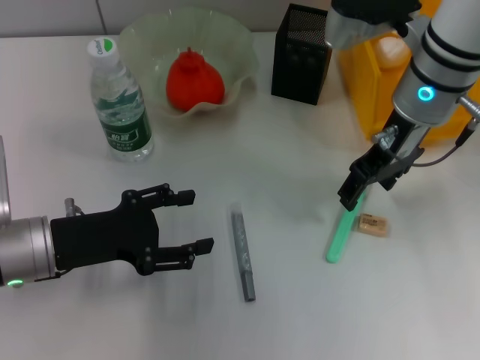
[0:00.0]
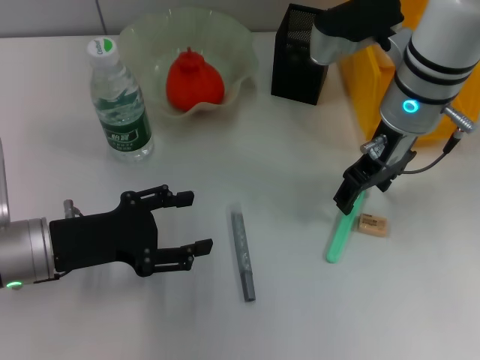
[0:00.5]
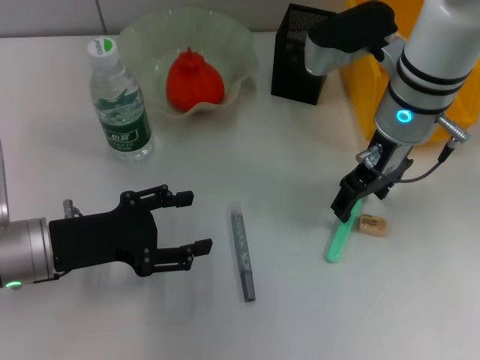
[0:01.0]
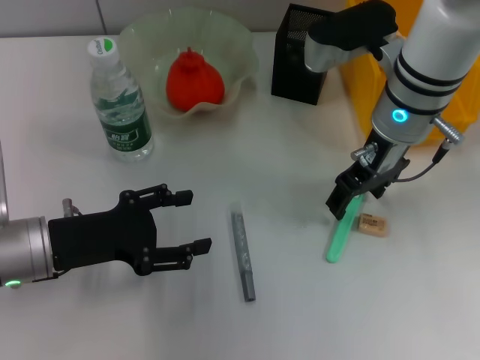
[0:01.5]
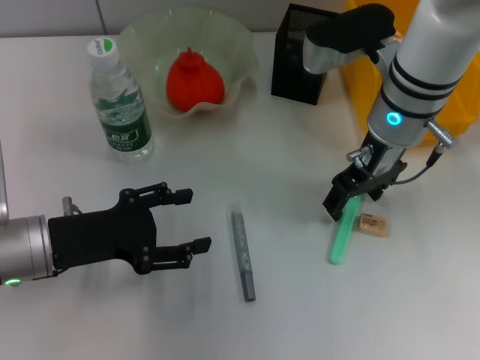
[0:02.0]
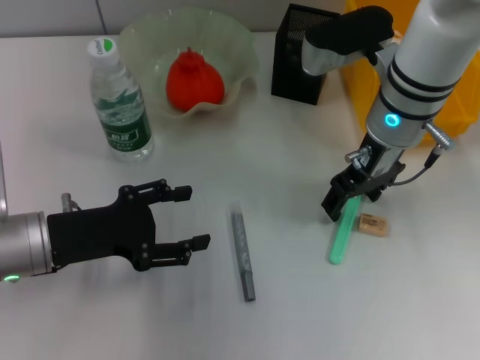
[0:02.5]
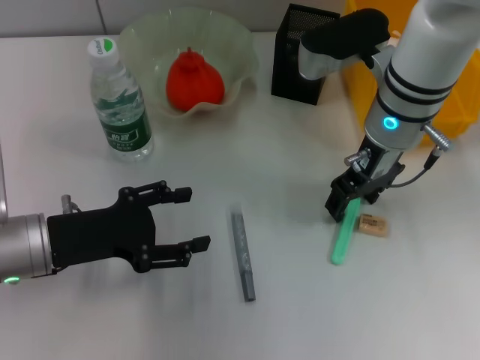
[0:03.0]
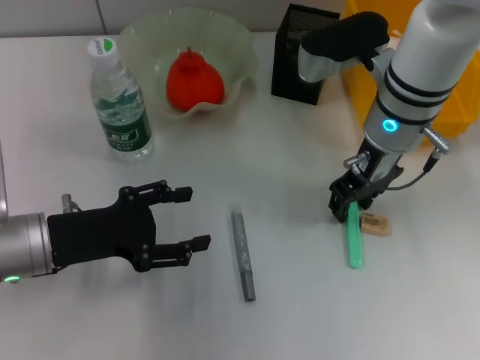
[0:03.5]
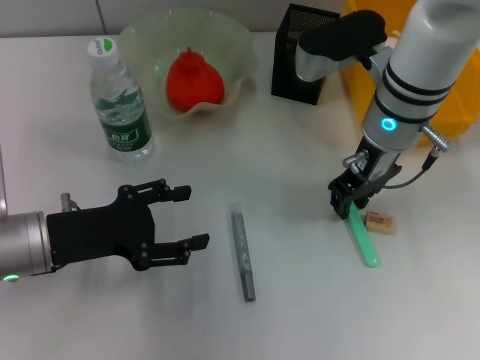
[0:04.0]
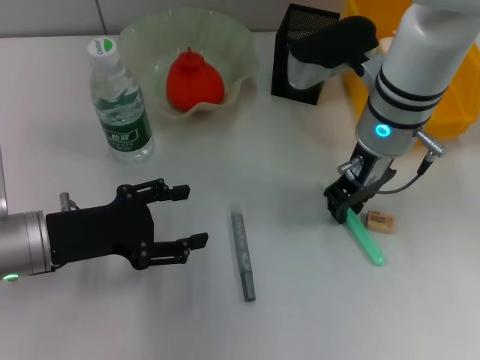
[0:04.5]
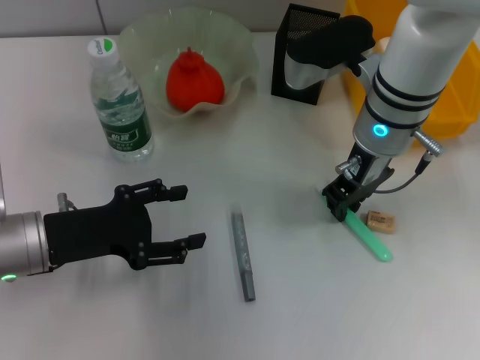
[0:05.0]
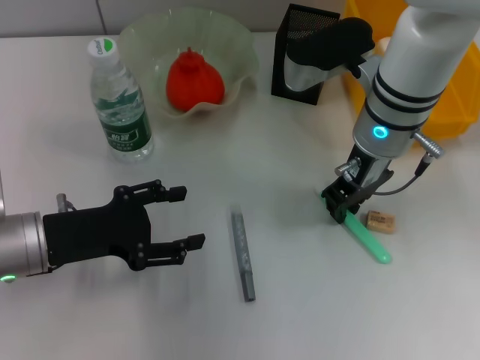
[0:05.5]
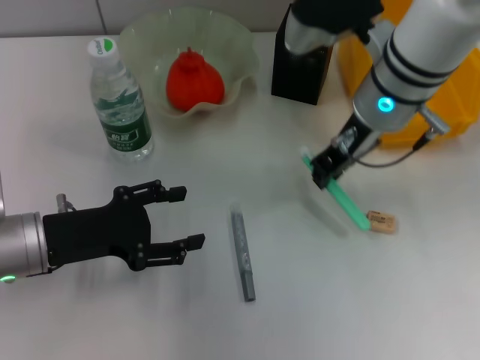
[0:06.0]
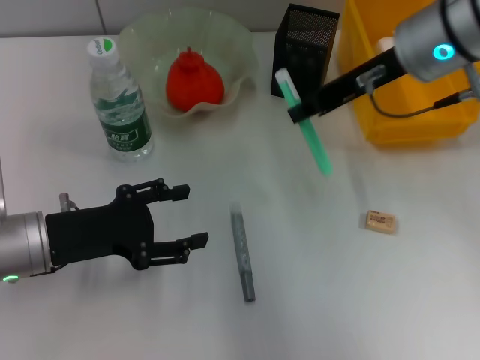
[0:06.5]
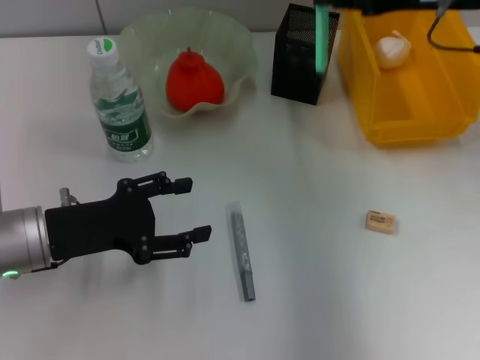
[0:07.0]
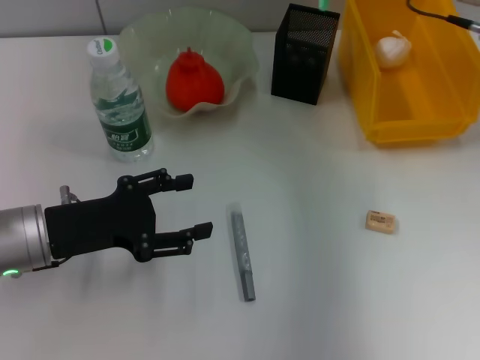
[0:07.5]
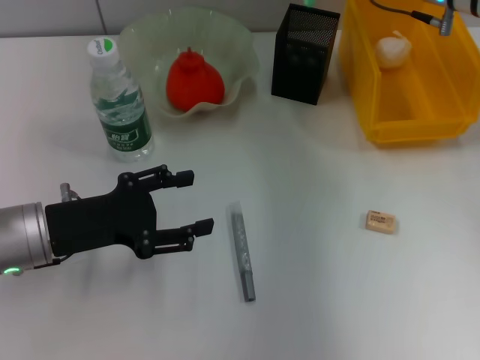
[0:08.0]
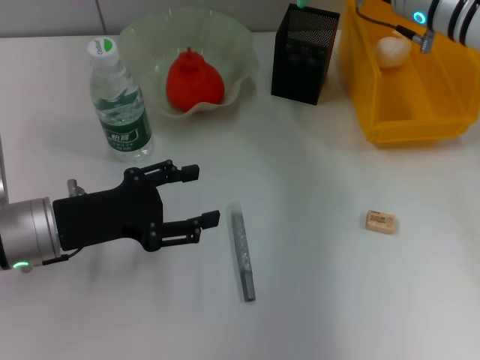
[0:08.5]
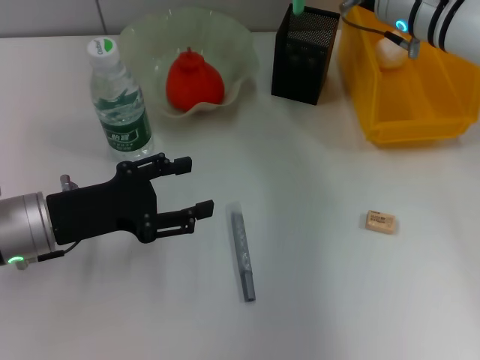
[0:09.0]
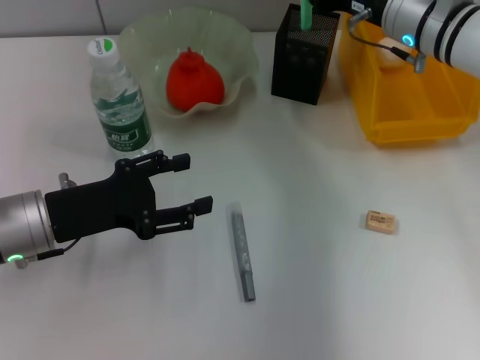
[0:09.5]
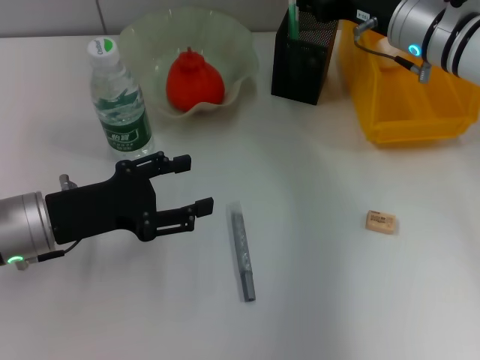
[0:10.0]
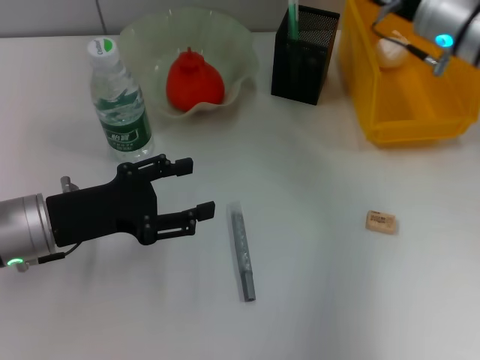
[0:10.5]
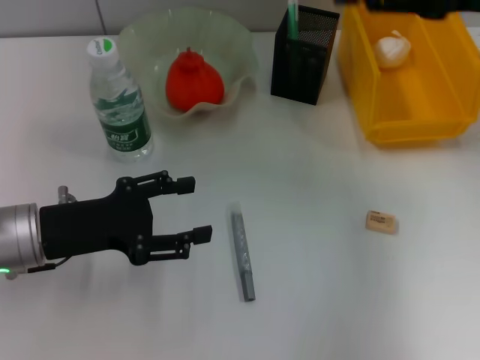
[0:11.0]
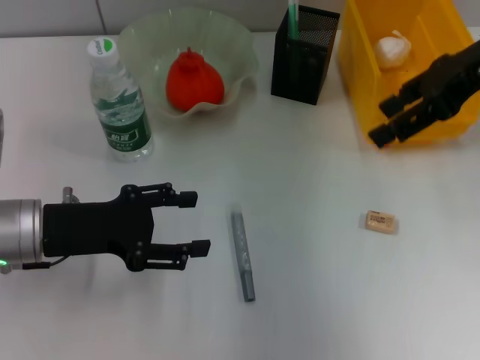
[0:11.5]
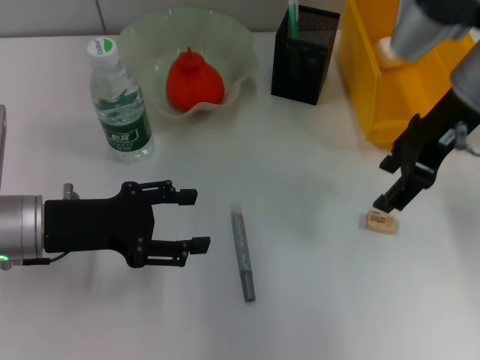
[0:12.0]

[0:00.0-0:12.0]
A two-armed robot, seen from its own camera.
Step, 0.0 to 5.5 s: Grab the blue utility knife with the right hand.
Step, 6.0 to 10.0 s: Place the blue utility knife into the pen holder with the right hand.
0.0 to 2.0 s: The grippers move only a little.
2.0 to 4.0 s: The right gripper closes.
4.0 to 6.0 s: The grippers make only small movements.
6.0 to 8.0 s: The right gripper heads to the right and forward, covering some 10 cm.
8.0 to 10.0 s: The right gripper is displaced downward by approximately 5 cm.
10.0 to 12.0 s: The right gripper shifts roughly 10 cm upward and backward, and opens up.

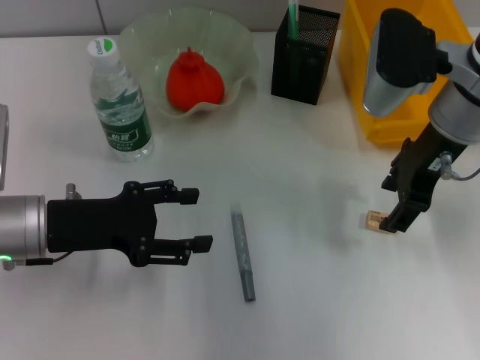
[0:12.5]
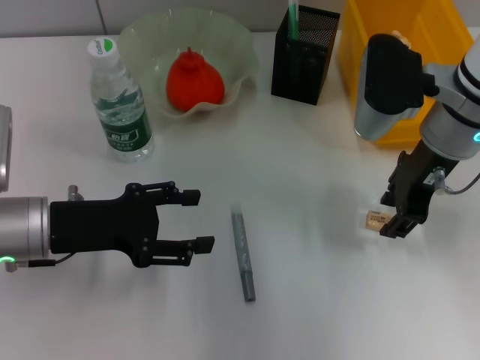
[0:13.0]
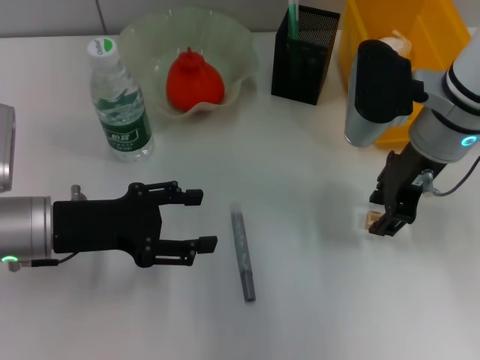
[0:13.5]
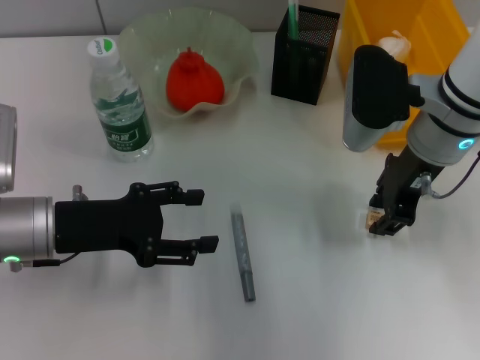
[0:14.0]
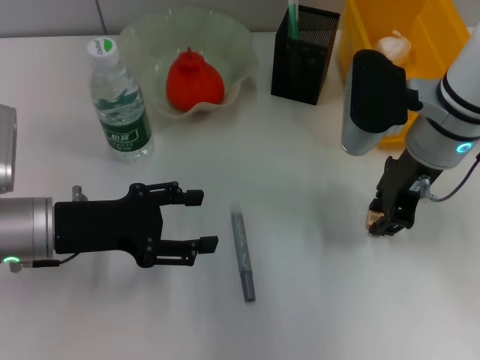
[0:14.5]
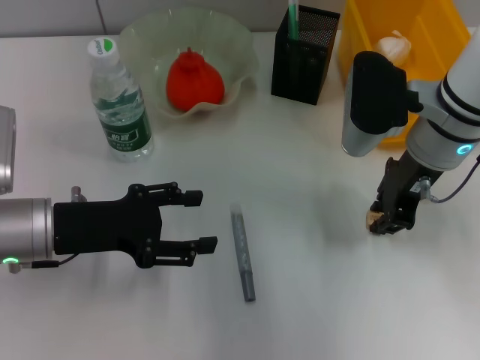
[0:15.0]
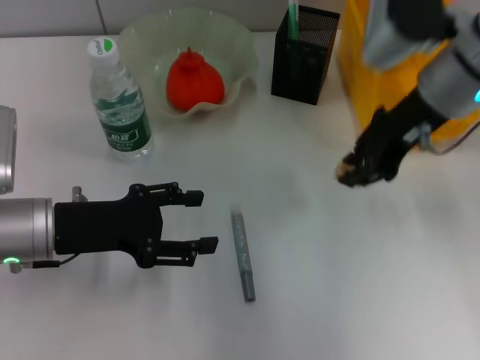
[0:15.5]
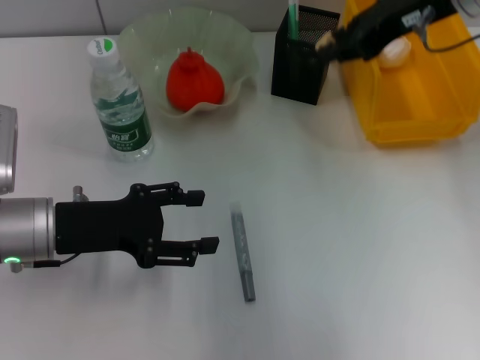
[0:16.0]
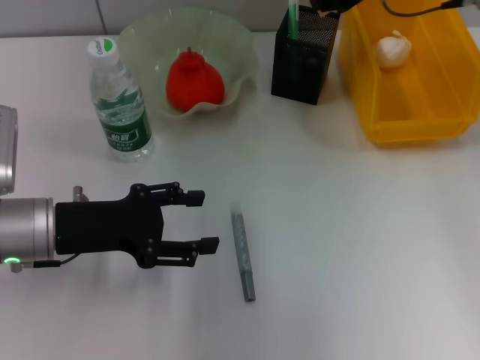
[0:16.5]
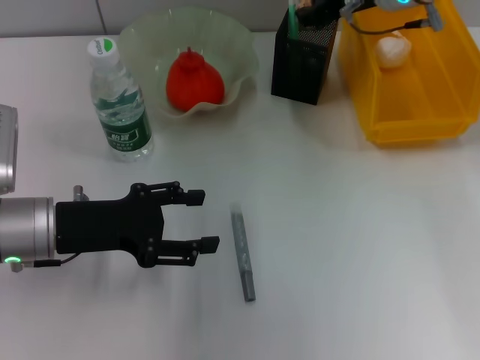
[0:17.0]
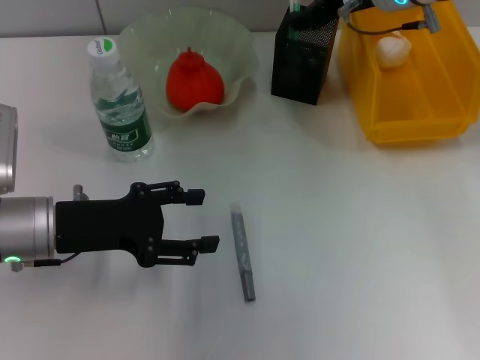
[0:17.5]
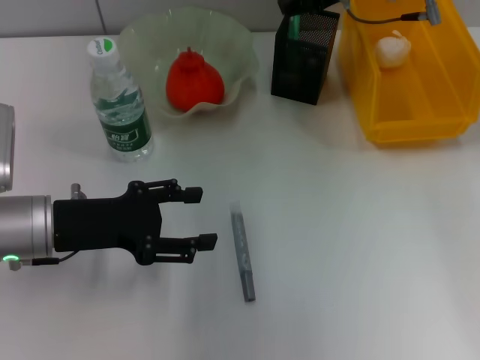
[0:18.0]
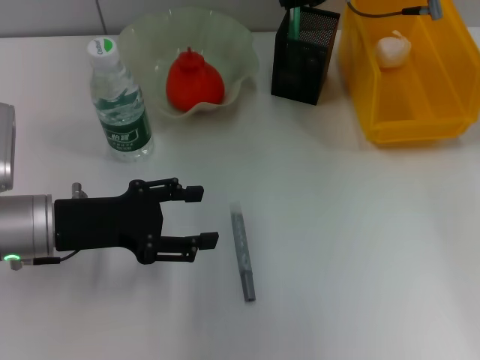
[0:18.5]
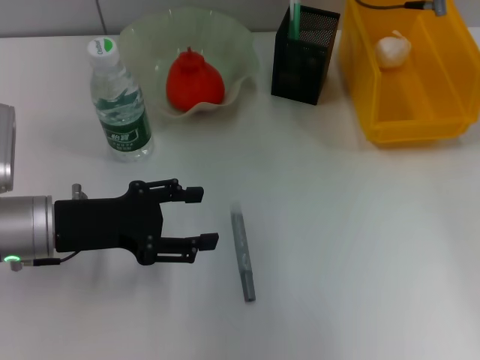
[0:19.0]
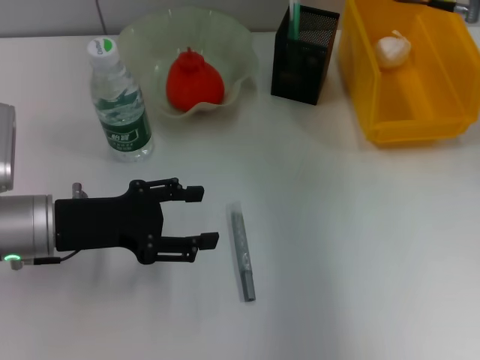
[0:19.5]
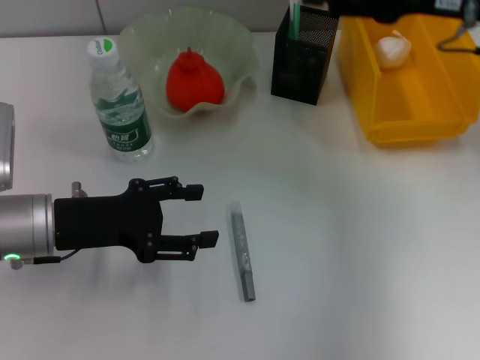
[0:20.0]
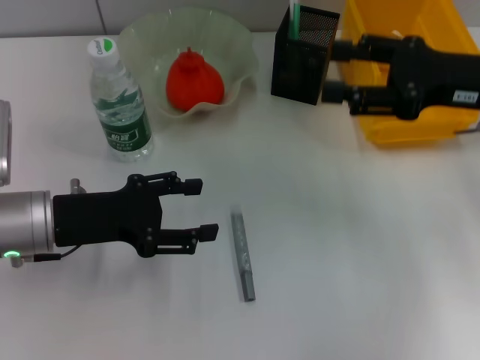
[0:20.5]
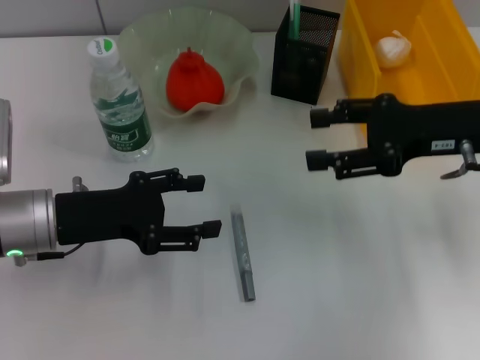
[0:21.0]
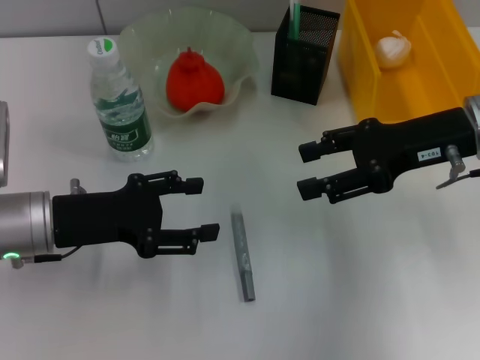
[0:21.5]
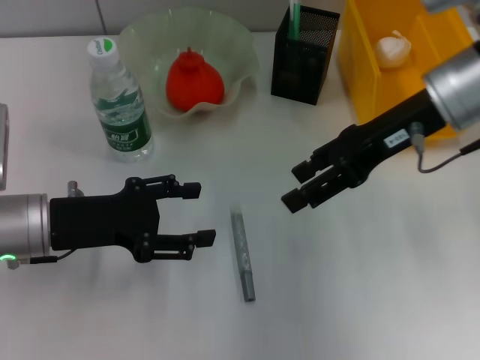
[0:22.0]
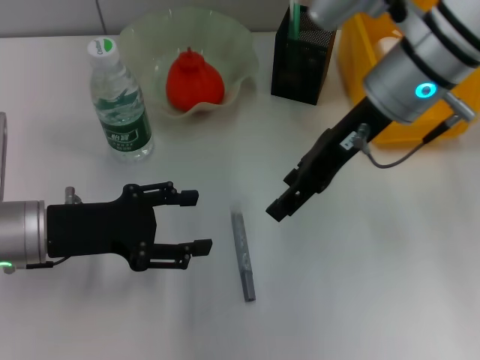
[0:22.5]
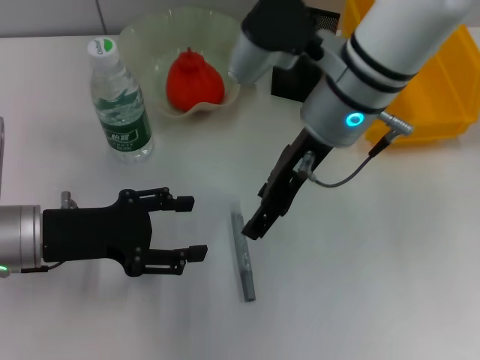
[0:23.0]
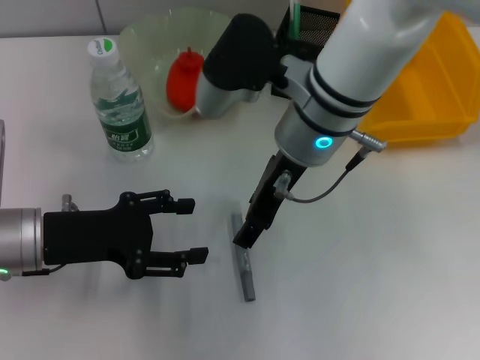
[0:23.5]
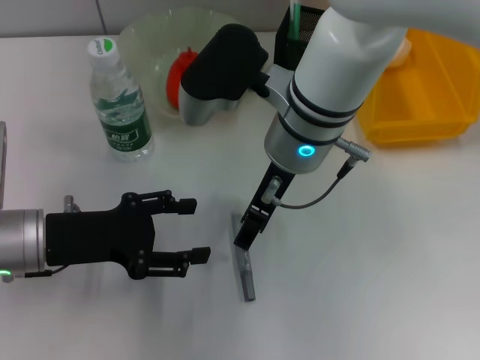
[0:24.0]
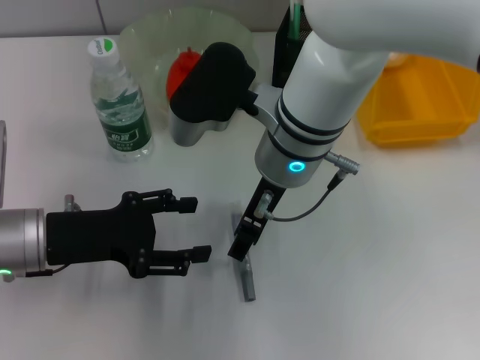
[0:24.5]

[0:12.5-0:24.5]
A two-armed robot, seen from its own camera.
Step, 12.5 to 14.5 s: Grab the eraser with the right hand.
Step, 15.0 to 17.5 s: Put the eraser into the pen holder with the right hand.
12.5 to 14.5 s: The right gripper closes up.
14.5 to 16.5 s: The right gripper shifts some 15 cm upward and forward.
16.5 to 18.5 s: The right gripper opens.
18.5 to 20.5 s: The right gripper moves backward and to the right, approximately 15 cm.
20.5 to 22.5 s: The right gripper is displaced to the left by about 15 cm.
22.5 to 24.5 s: The right gripper travels to the left by about 10 cm.

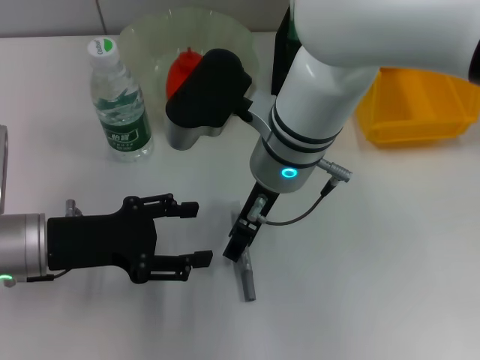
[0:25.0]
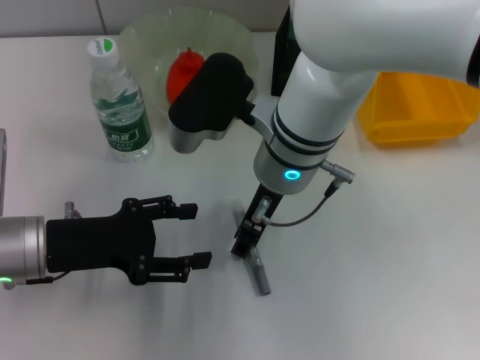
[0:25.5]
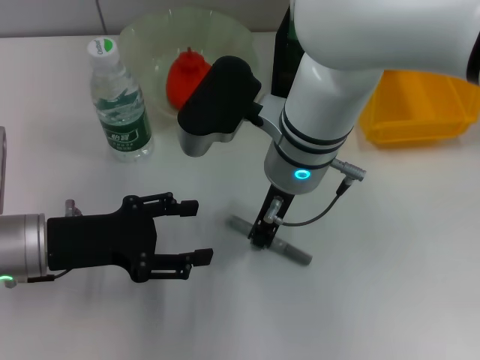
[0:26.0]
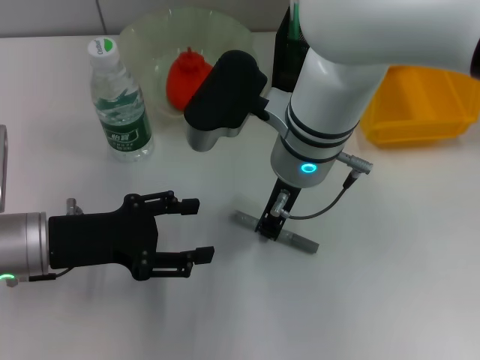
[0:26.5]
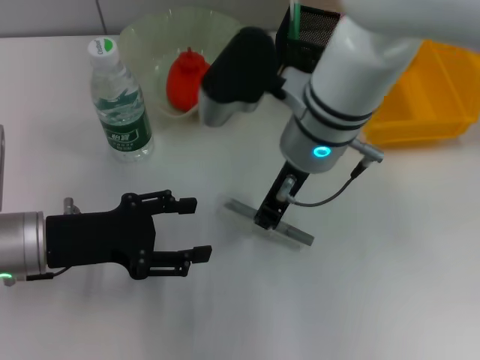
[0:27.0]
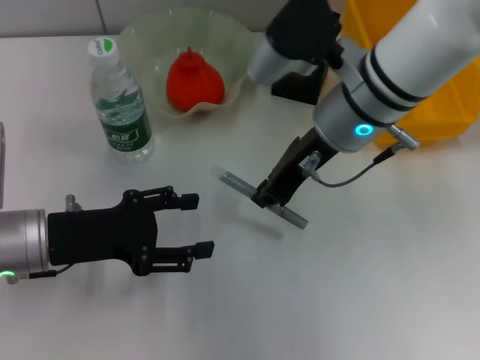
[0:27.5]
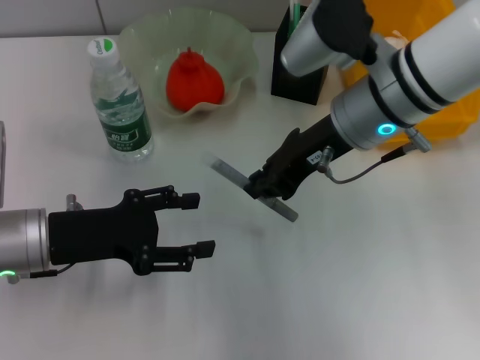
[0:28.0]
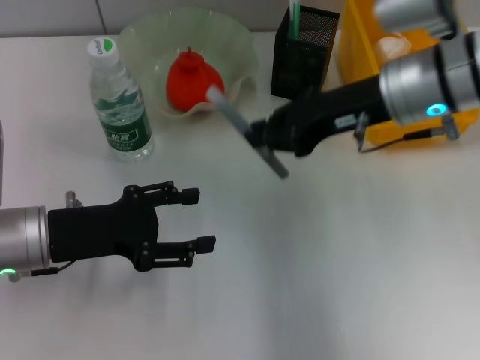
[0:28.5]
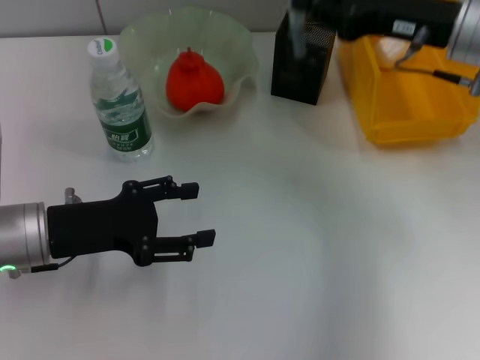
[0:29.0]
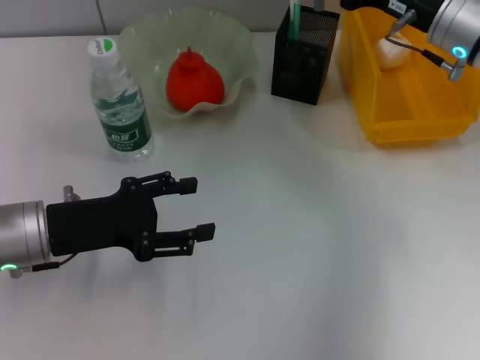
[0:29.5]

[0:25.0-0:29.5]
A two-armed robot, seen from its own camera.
25.0 to 27.0 s: The right gripper closes.
27.0 to 29.5 s: The right gripper goes approximately 15 cm to the right.
